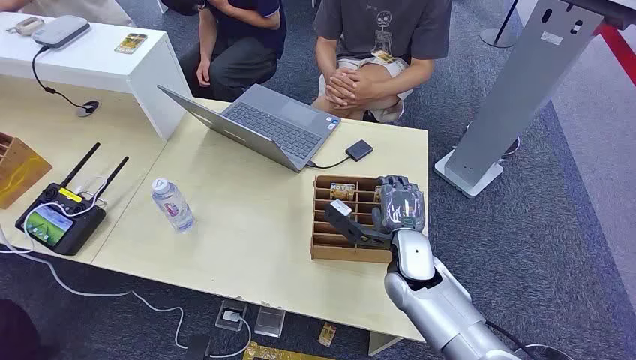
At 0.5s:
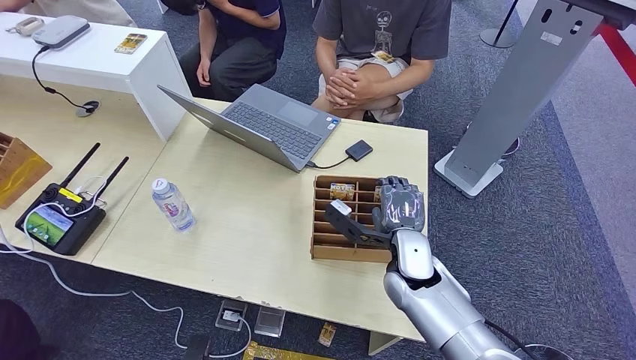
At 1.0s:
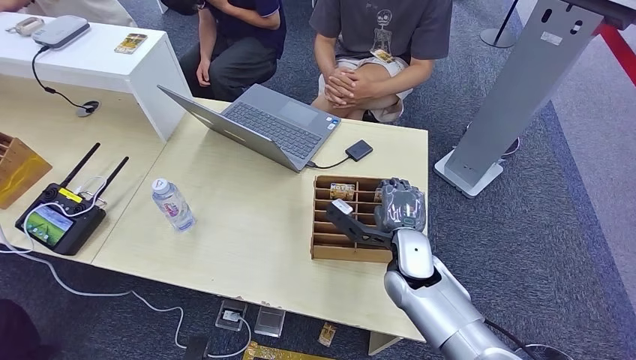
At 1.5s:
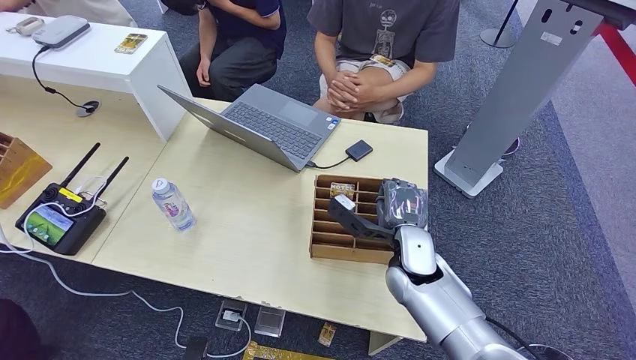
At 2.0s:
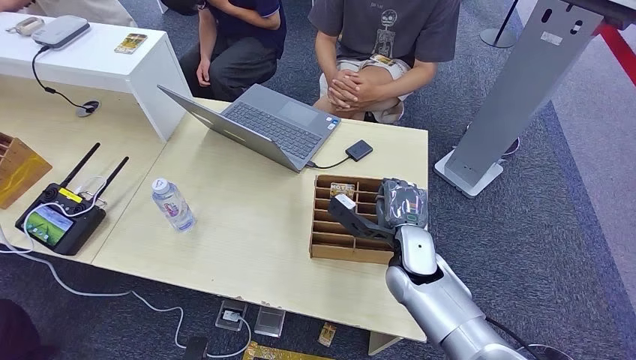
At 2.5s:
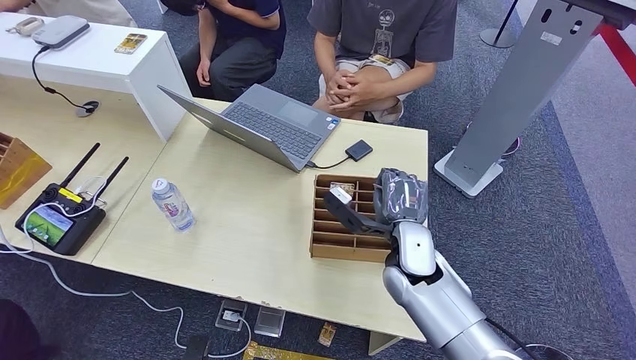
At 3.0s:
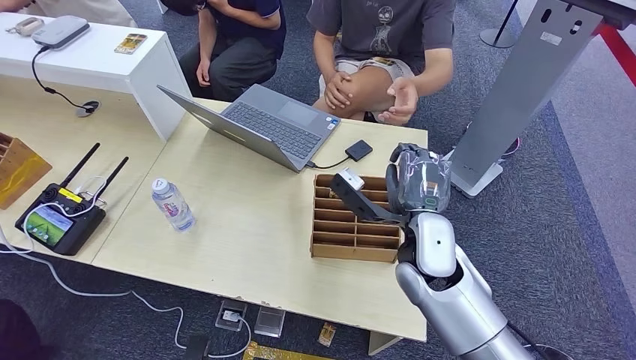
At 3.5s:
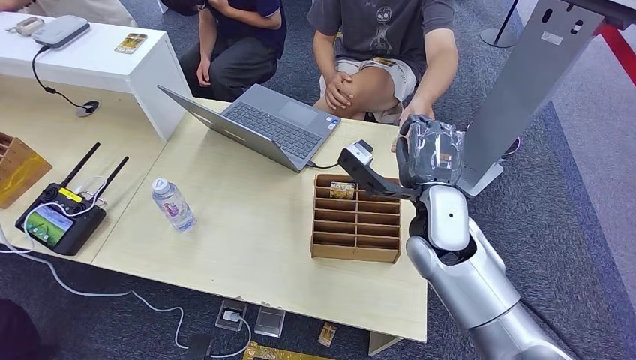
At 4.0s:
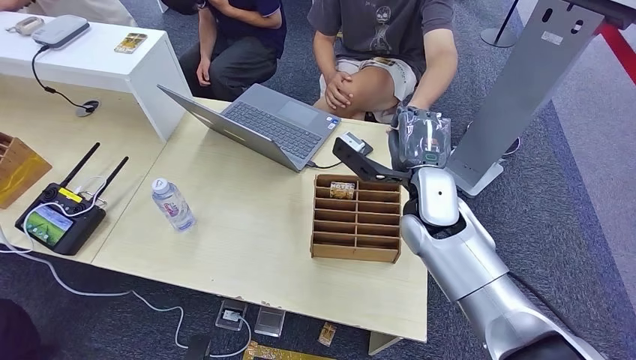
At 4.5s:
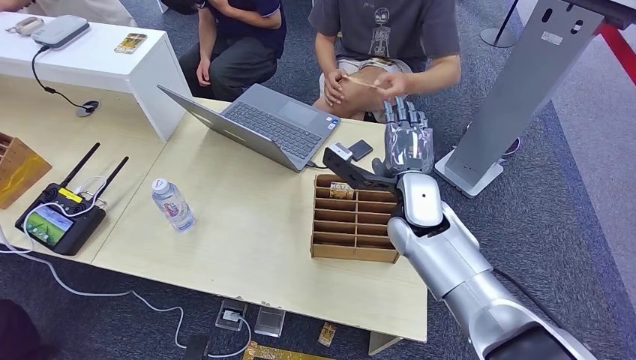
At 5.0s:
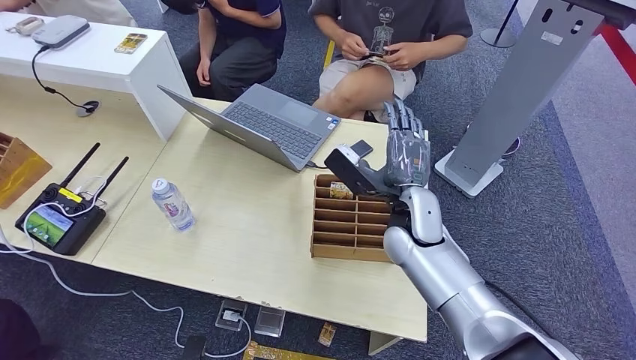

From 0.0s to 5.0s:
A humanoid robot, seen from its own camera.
Step, from 0.0s to 2.5s: Pick up the room card from the card holder.
Step, from 3.5s to 5.0s: Hand the room card to the target.

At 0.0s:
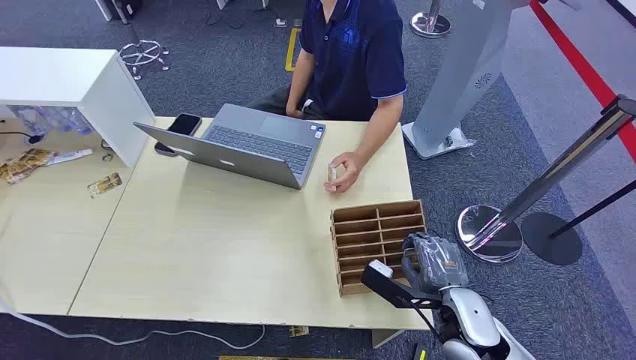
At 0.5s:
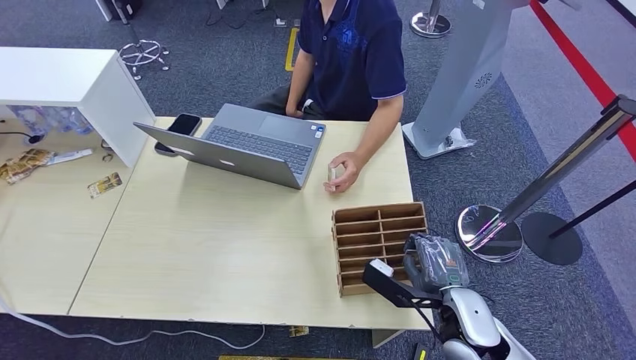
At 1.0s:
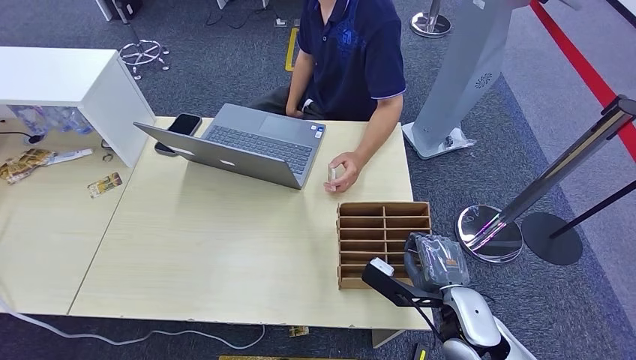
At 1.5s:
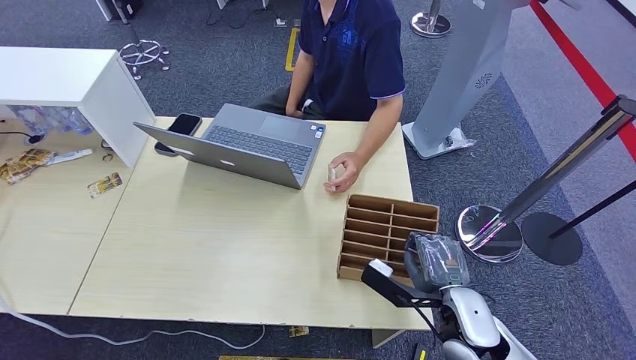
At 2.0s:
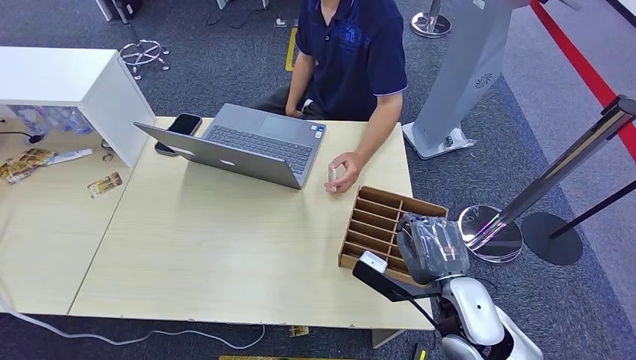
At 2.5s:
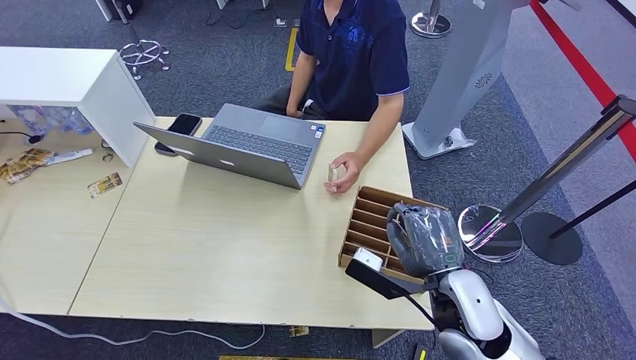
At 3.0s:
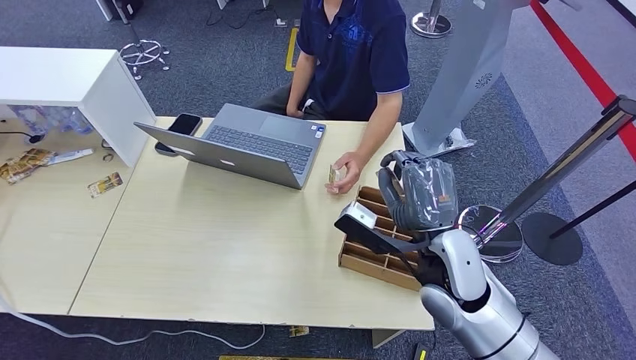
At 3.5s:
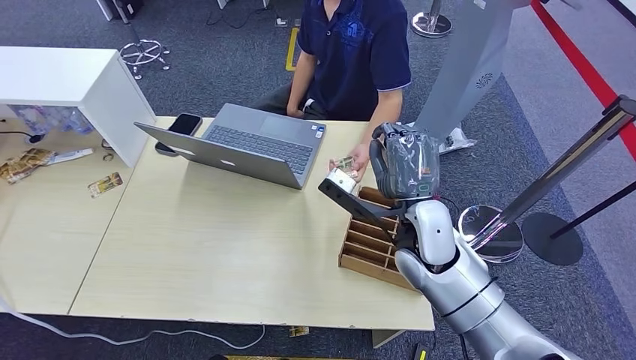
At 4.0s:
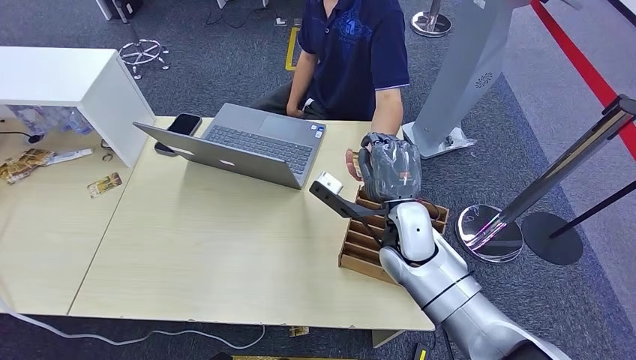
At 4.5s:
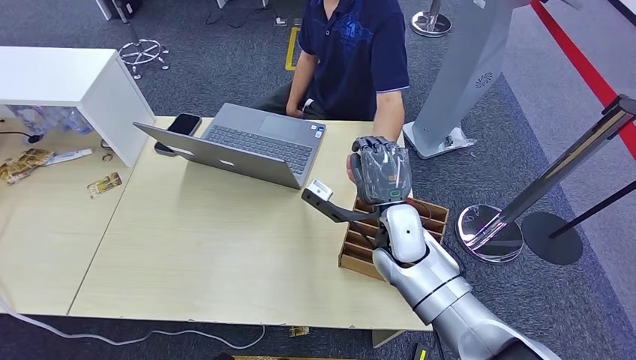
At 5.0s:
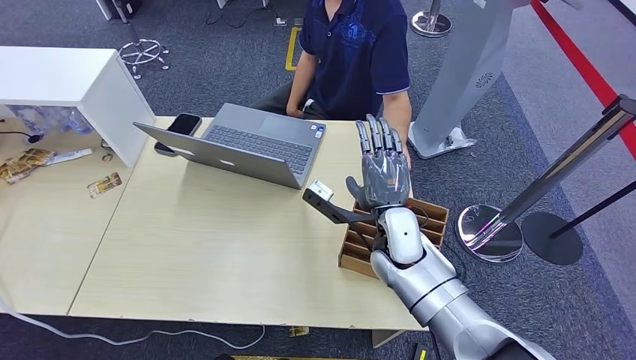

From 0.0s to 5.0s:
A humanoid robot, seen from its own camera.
Step, from 0.0s to 2.0s: Pick up the room card from the card holder.
From 2.5s to 5.0s: The right hand heads forward and to the left, covering roughly 15 cm; the left hand shifts by about 5 cm.

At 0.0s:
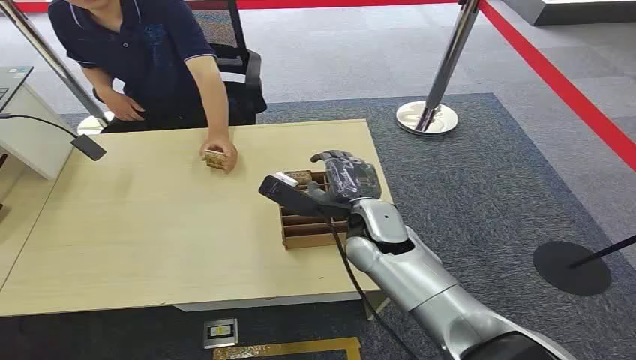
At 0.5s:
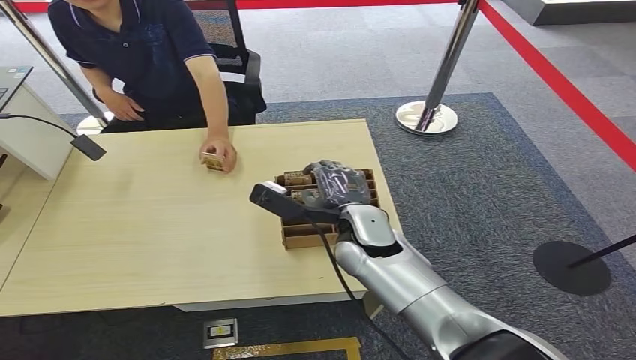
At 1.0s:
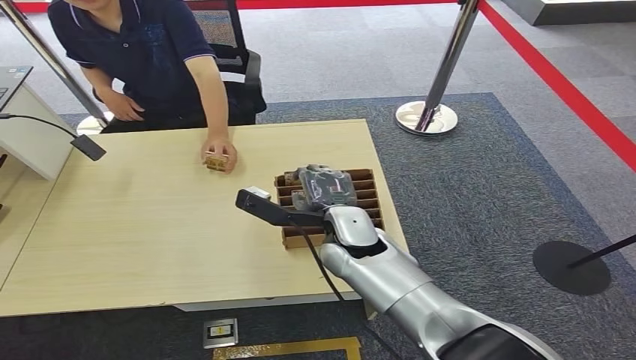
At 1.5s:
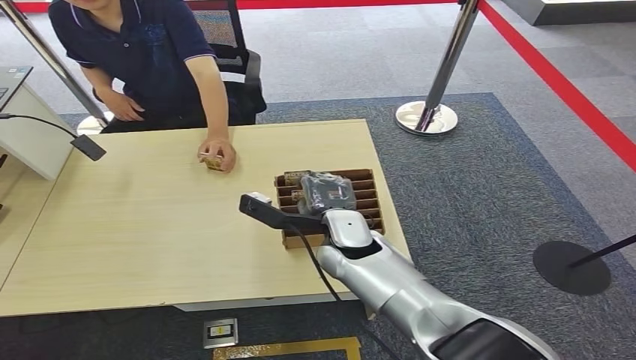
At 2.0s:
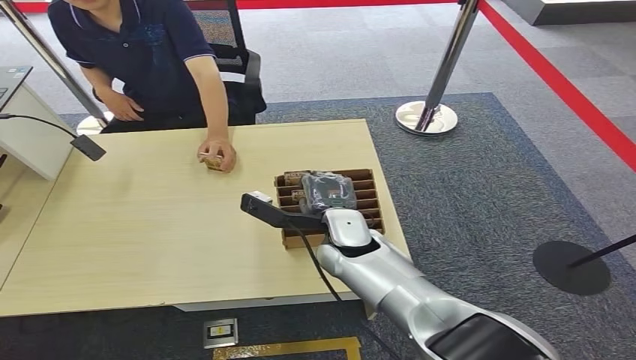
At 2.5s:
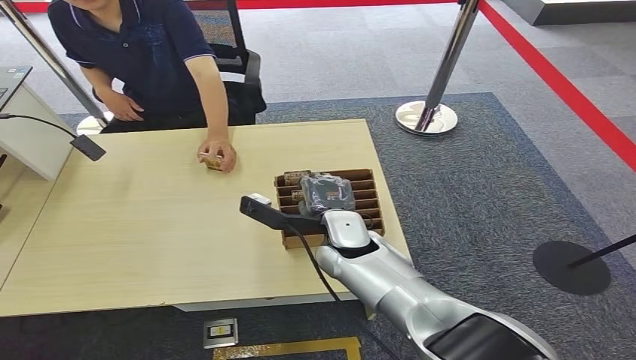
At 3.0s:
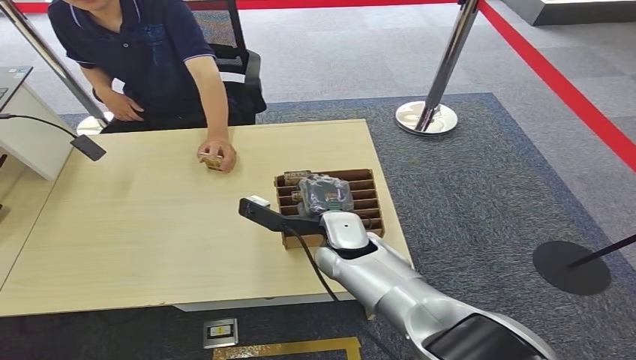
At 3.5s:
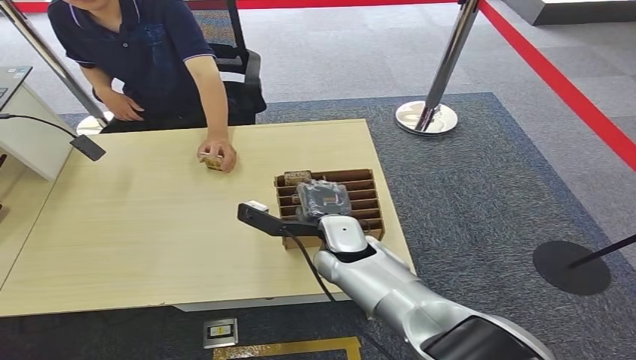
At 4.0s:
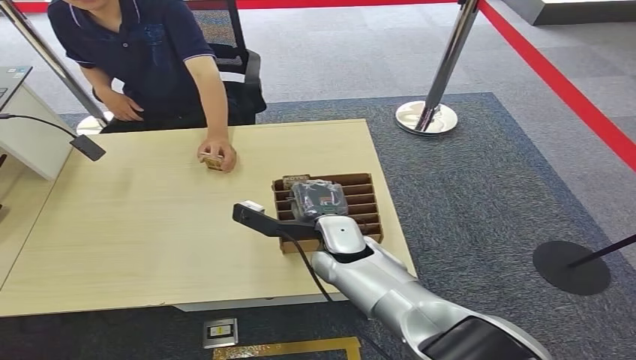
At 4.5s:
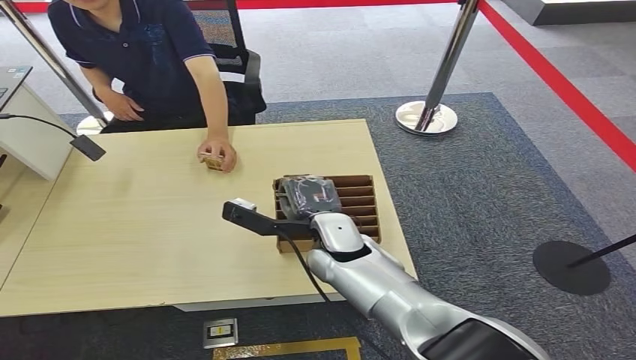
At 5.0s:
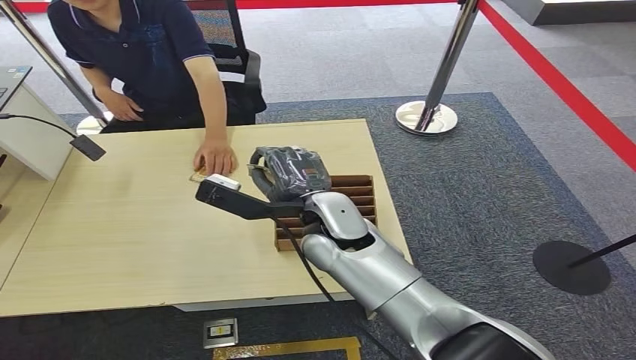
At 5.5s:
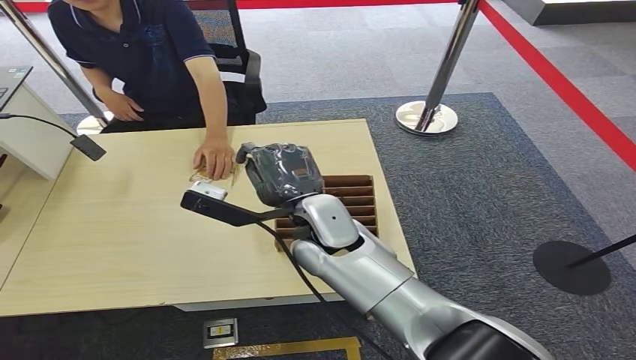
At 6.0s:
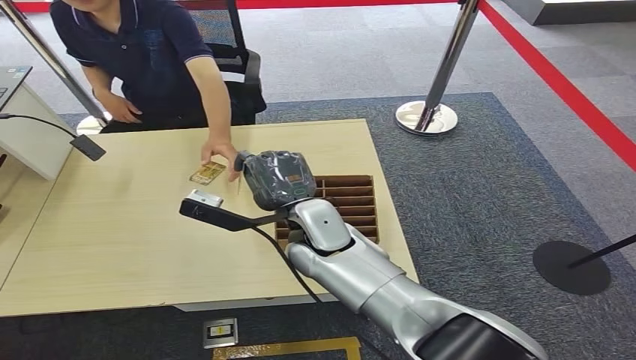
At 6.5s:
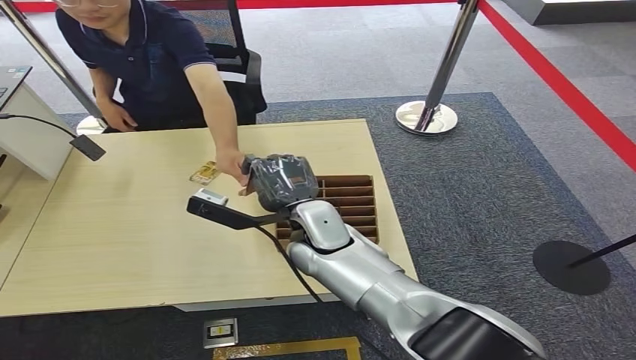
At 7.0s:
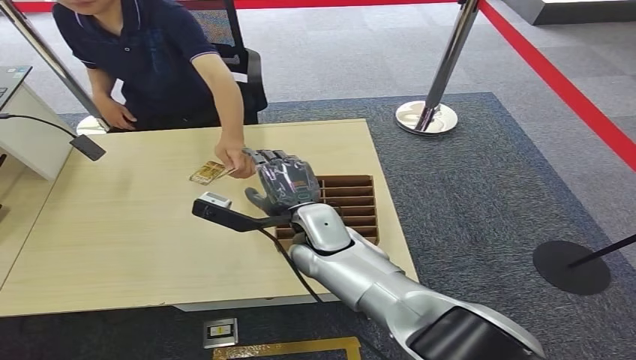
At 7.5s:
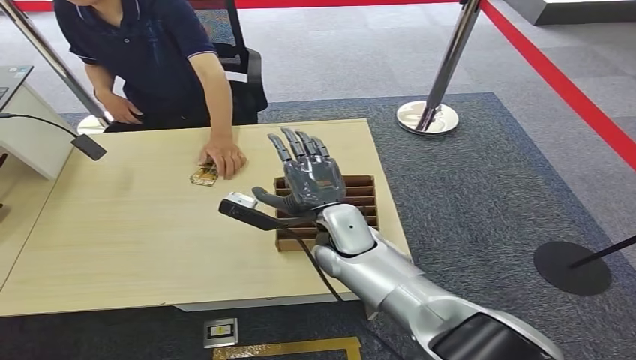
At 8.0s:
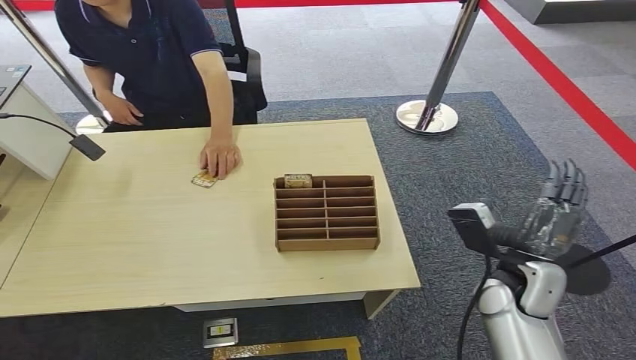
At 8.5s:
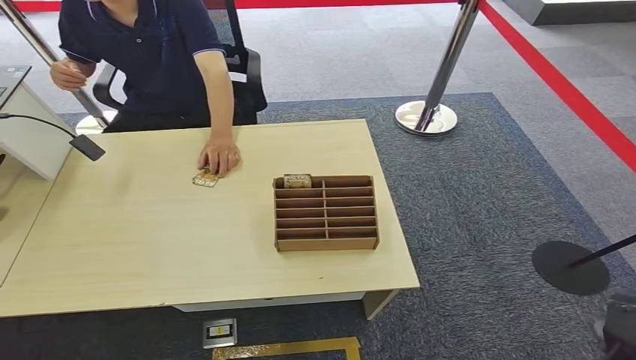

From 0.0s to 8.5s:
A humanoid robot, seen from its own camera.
Step, from 0.0s to 5.0s: Pick up the room card from the card holder.
Step, from 5.5s to 8.5s: Hand the room card to the target.
From 2.0s to 4.0s: The hands stay close to where they were, moving slightly.
From 4.0s to 6.5s: The right hand moves upward, approximately 5 cm.
From 6.5s to 8.5s: The right hand shifts about 50 cm to the right, backward and downward.
